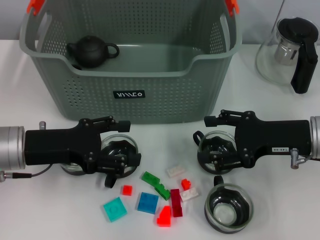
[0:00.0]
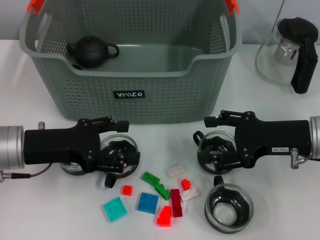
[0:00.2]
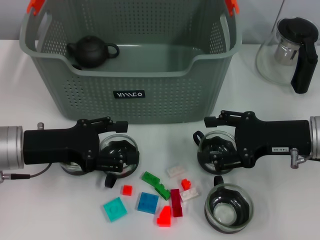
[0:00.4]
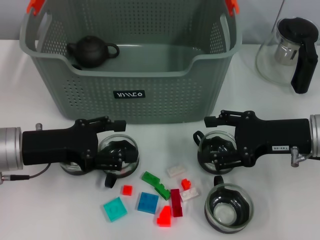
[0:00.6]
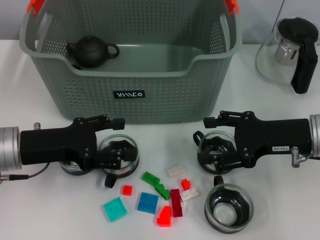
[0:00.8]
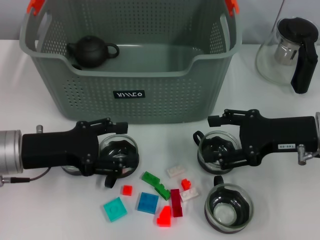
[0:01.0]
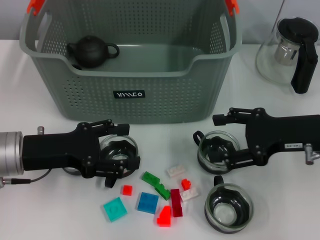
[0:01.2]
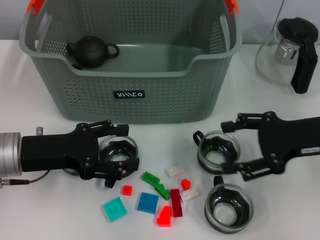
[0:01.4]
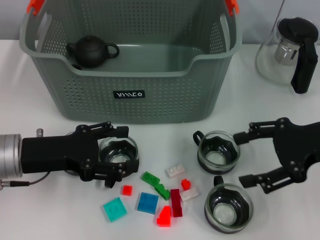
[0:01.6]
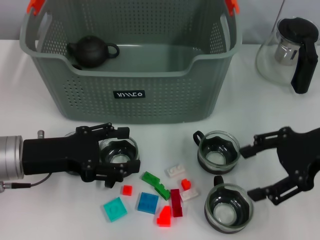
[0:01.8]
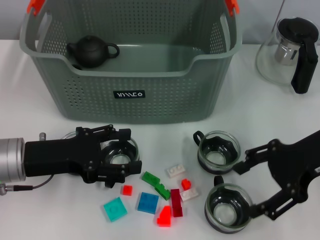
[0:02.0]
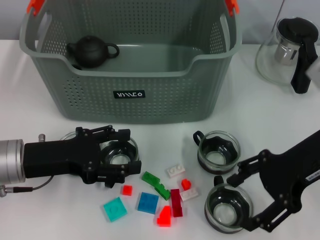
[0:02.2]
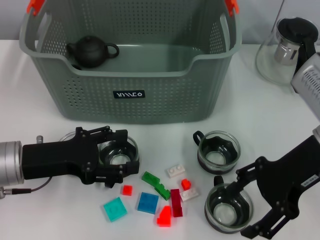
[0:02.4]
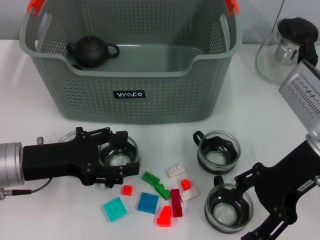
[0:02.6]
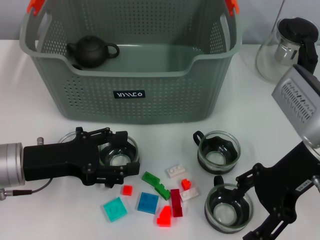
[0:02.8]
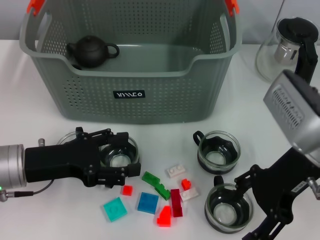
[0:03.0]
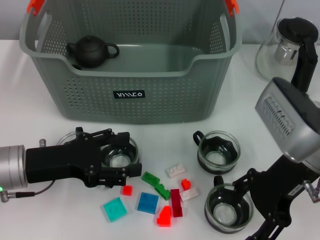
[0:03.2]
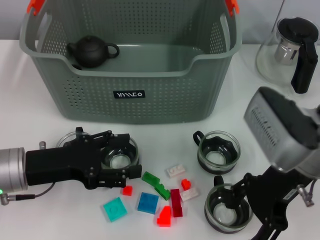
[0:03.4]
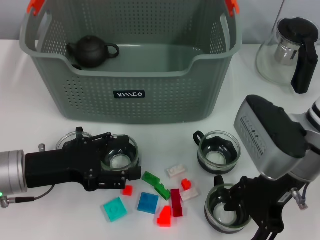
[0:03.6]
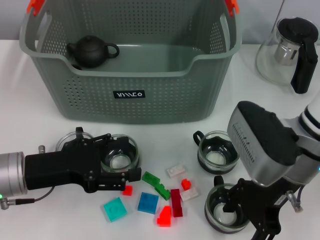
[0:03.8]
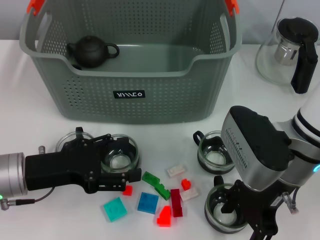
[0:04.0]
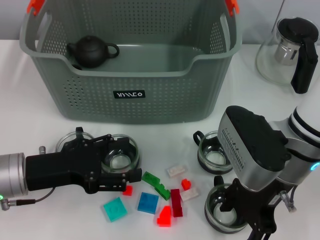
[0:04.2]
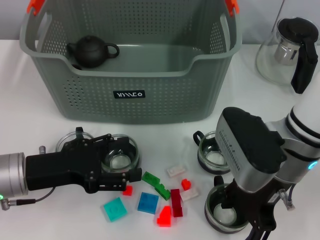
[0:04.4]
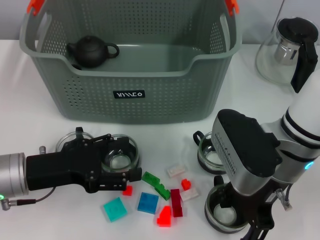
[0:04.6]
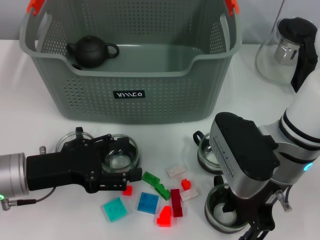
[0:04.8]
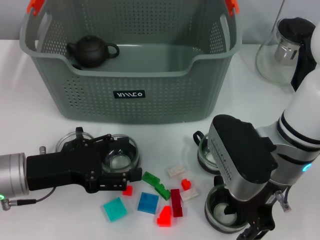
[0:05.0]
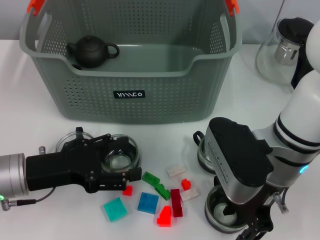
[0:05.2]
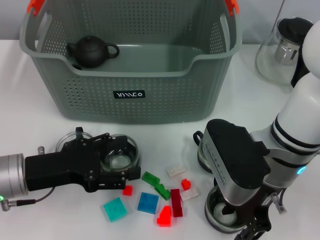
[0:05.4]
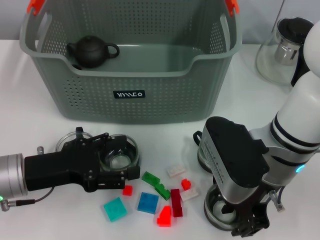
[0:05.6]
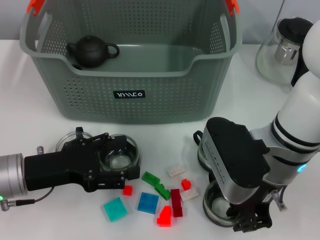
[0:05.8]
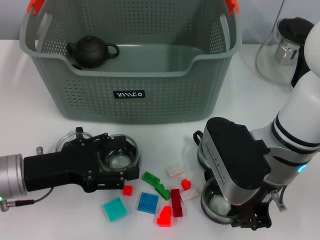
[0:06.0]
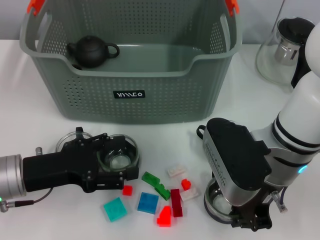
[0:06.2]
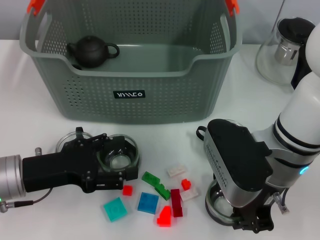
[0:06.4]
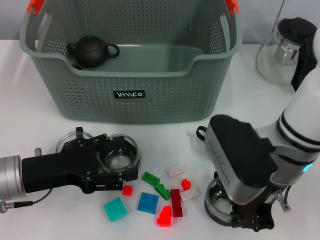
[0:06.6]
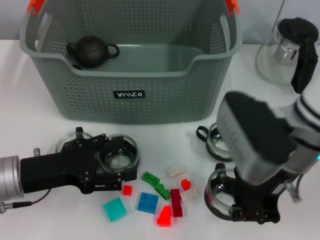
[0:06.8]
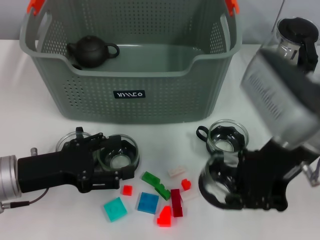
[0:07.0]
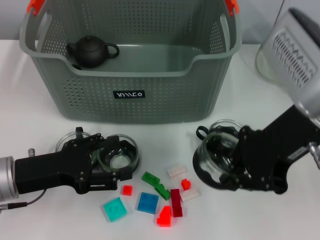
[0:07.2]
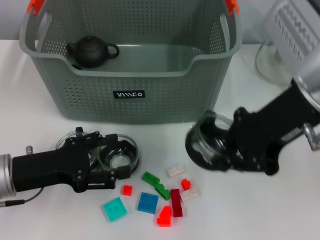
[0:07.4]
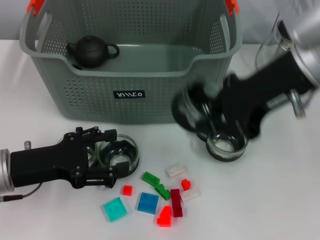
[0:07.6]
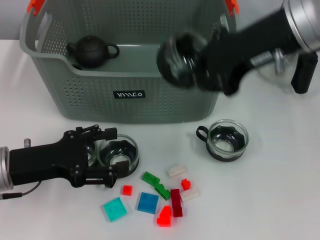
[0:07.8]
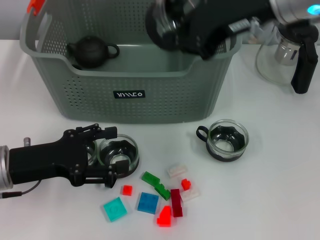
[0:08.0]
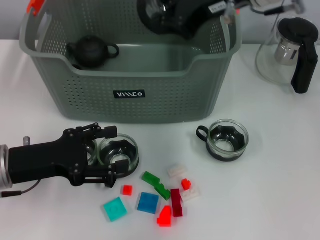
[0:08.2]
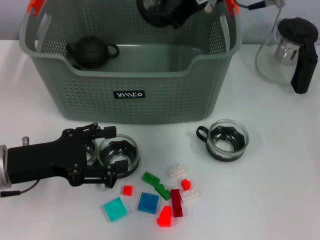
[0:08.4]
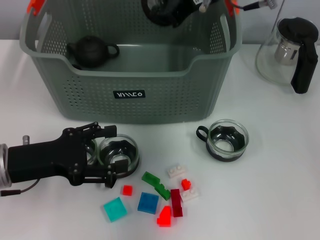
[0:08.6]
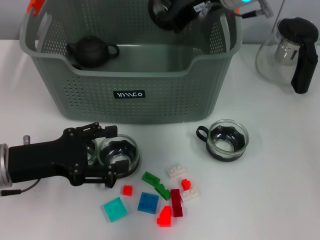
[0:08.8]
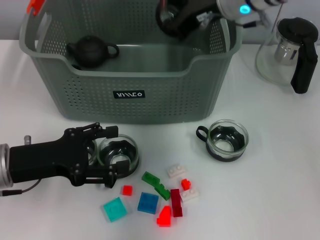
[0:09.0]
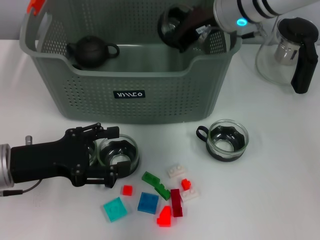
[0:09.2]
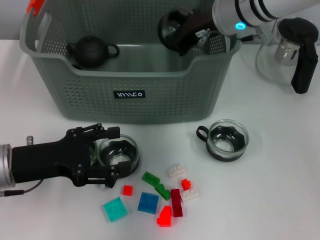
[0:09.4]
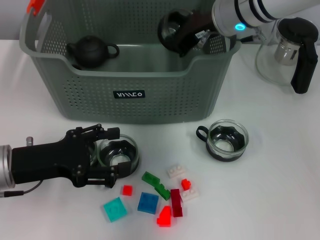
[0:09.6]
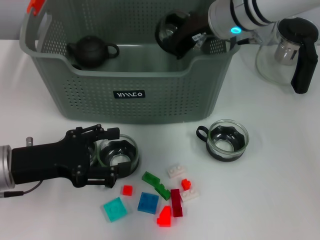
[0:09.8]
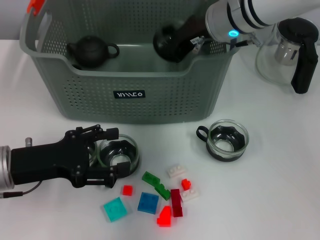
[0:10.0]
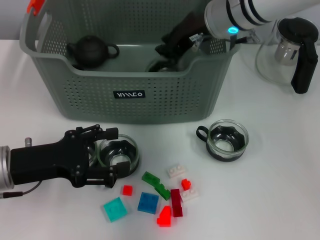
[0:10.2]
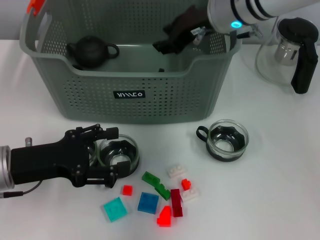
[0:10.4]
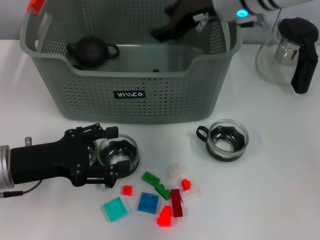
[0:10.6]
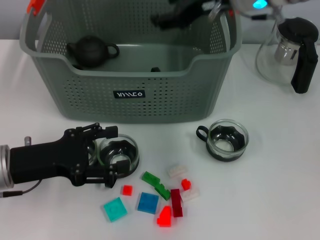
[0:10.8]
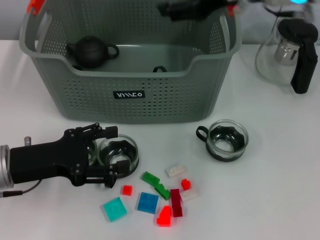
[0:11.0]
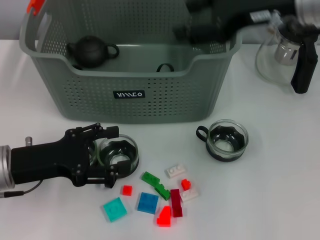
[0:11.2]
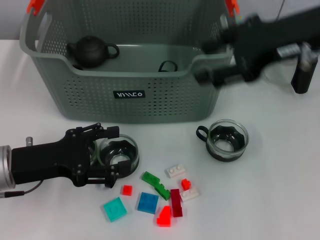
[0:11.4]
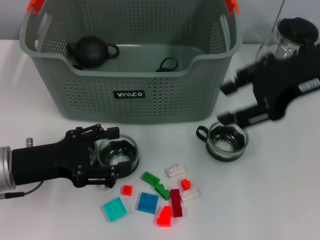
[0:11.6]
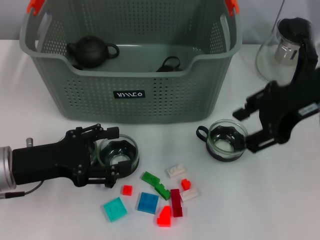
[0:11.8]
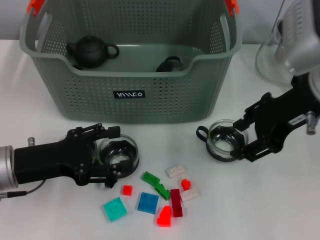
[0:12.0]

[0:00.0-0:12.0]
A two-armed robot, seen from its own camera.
Task of the whole recording: pick up the teacup on the table and place it into the storage bin, pick up the block on the table and place it into the storage bin.
Step, 0.0 to 6.2 s: Grasp the cup with right gripper.
Step, 6.4 to 10.2 s: Place the cup in the storage box with right gripper.
0.0 to 1.6 s: The right gripper travels upward by approximately 5 cm.
1.6 to 3.0 s: The right gripper is displaced to the left by about 10 cm.
3.0 to 4.4 s: The right gripper heads to the left, covering about 5 cm.
4.4 to 6.0 s: The right gripper closes its fingers.
6.0 to 7.6 s: The right gripper moves upward, roughly 15 cm.
7.6 to 9.0 s: The right gripper is displaced forward by approximately 15 cm.
9.0 to 10.4 s: The grippers stay close to where they were, moving slightly.
10.4 to 12.0 s: The right gripper shifts approximately 15 cm backward and to the right, and opens up.

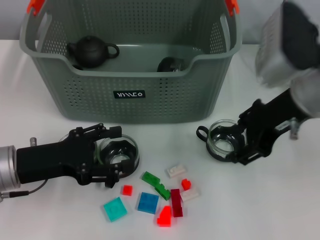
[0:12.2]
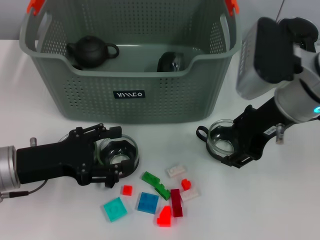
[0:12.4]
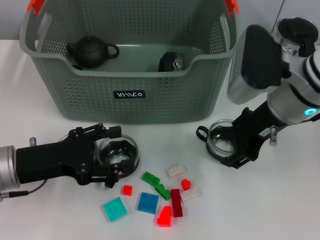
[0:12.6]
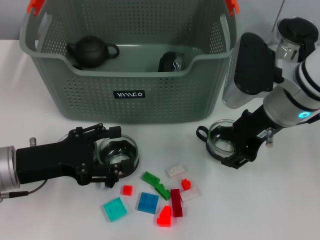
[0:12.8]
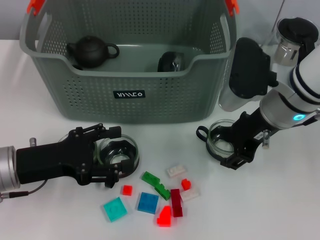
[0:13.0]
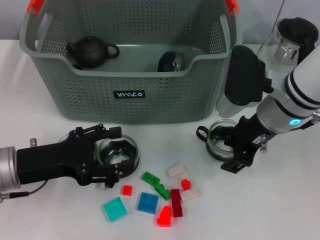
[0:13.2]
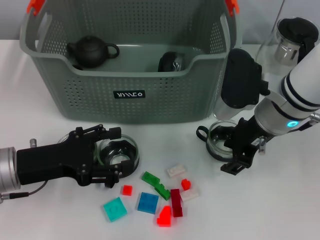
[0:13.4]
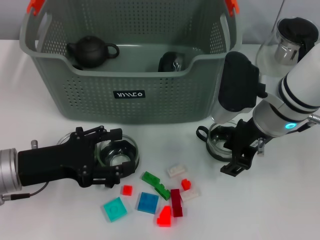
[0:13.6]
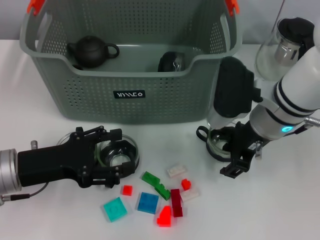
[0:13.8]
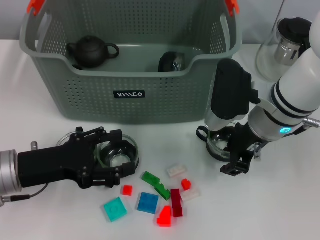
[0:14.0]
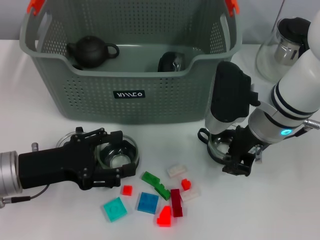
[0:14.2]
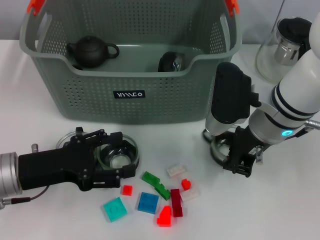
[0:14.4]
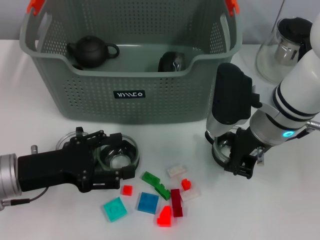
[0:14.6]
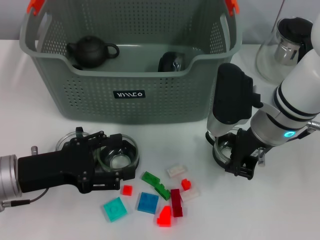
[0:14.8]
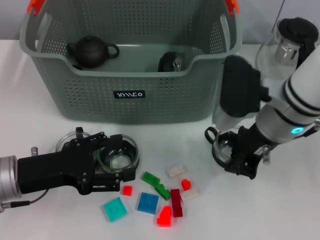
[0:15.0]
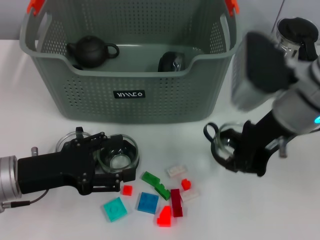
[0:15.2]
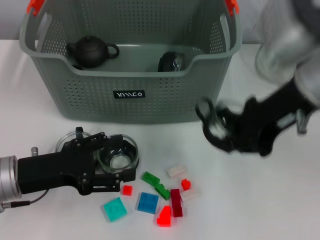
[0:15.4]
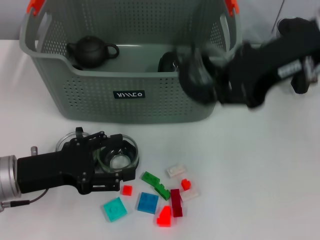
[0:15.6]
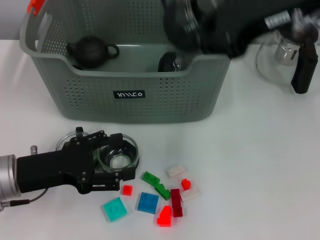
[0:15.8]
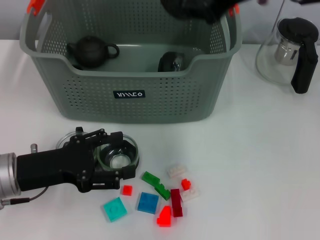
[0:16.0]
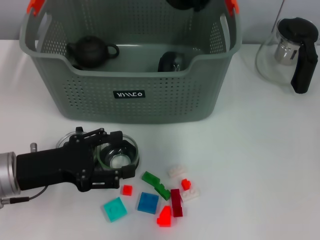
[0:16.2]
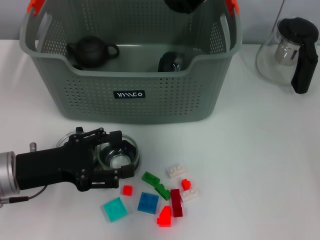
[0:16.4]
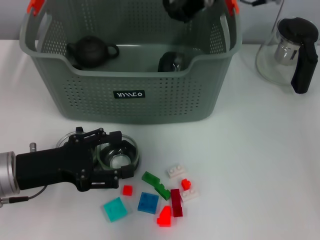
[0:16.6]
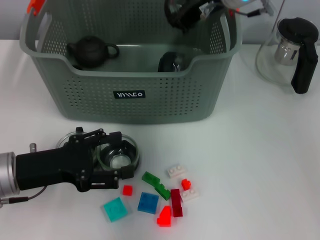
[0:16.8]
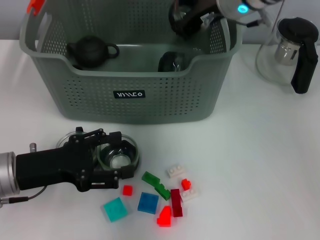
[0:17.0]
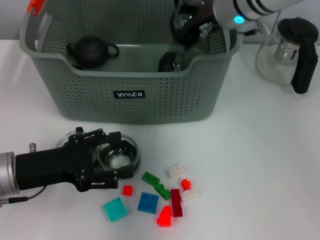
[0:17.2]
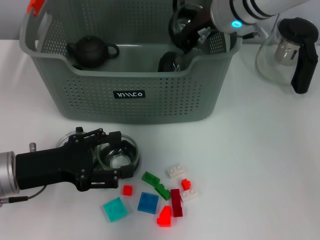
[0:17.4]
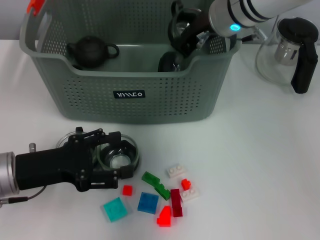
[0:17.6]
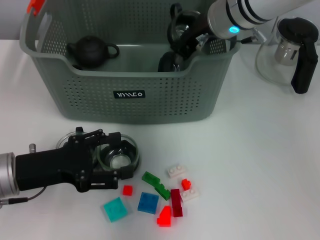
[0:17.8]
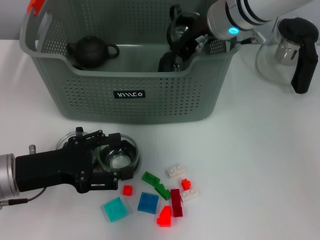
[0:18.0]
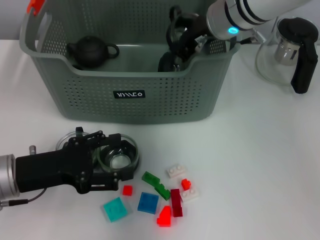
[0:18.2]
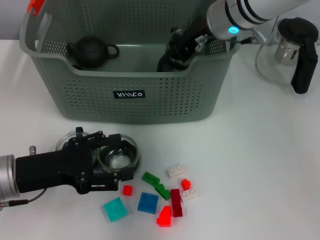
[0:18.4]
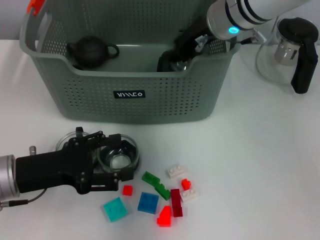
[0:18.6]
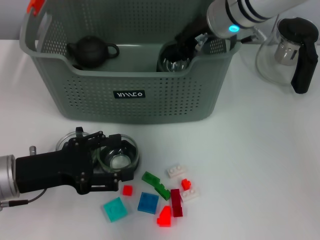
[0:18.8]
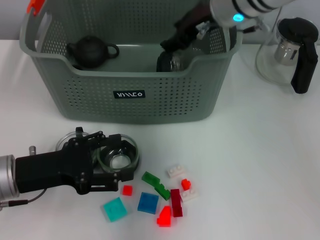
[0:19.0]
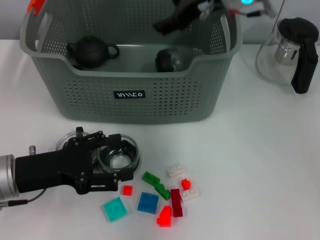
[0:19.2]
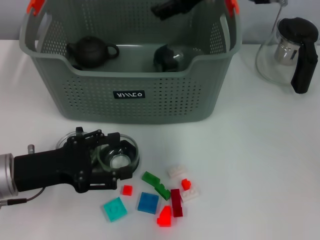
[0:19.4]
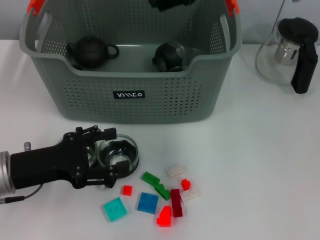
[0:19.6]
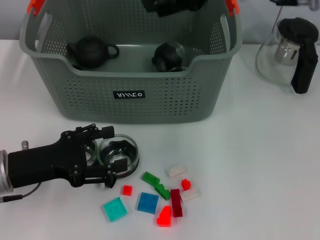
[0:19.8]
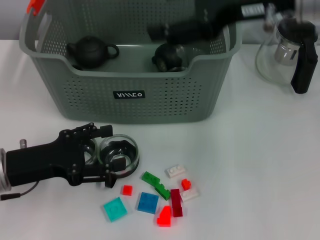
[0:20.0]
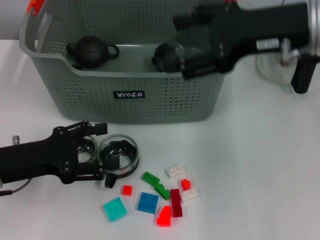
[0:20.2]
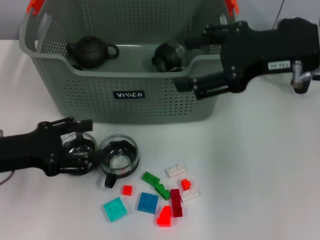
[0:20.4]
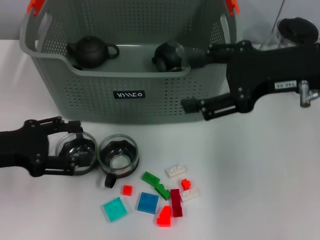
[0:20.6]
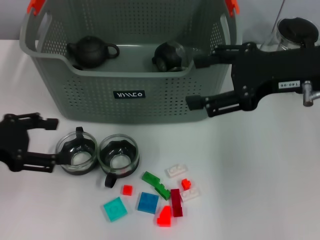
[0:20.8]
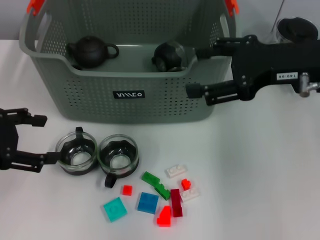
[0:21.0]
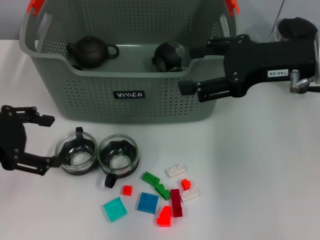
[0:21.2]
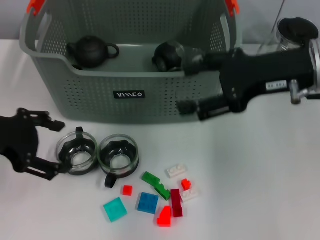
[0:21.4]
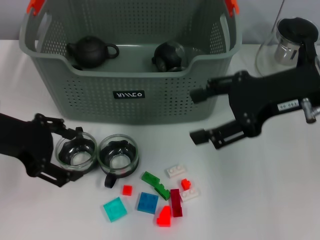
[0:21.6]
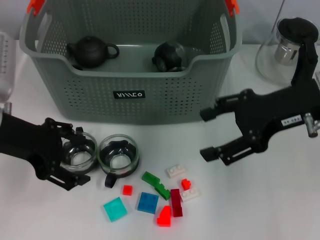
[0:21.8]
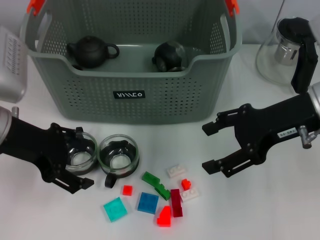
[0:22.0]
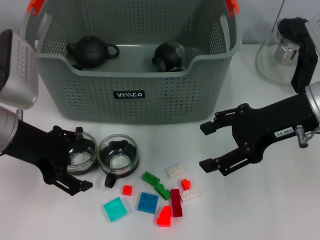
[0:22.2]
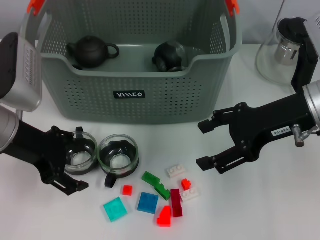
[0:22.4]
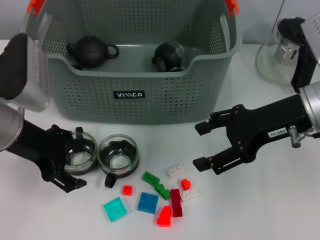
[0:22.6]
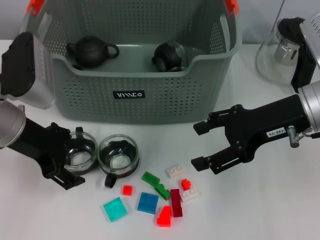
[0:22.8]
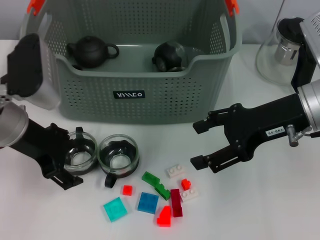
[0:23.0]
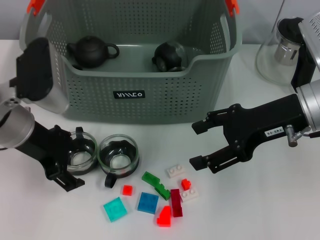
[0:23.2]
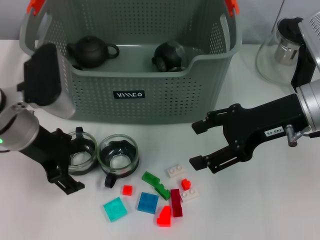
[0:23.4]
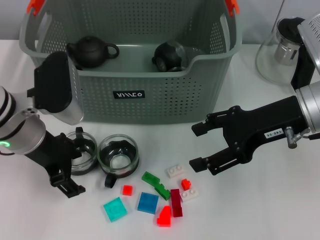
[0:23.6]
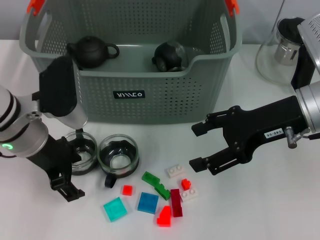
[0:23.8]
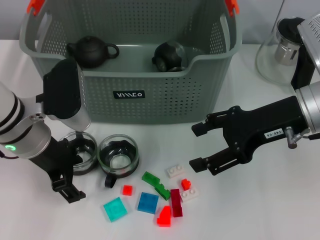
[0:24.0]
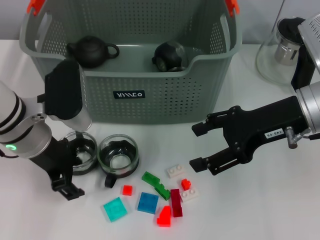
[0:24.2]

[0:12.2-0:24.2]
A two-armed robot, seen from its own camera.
Task of the whole recording: pick up the teacup on the table and place it into the storage bin, pick up the block on the table and place it into the storage bin.
Step, 12.2 to 14.4 s: Grasp the cup with right gripper.
Step, 14.6 to 19.0 s: Place the cup in the storage box with right gripper.
12.2 to 13.8 s: The right gripper shifts roughly 5 cm downward.
13.8 to 15.2 s: The right gripper moves upward, some 5 cm, and closes up.
15.2 to 16.6 s: The right gripper shifts some 15 cm forward, upward and to the left.
16.6 to 18.2 s: The right gripper heads downward, covering some 5 cm.
18.2 to 19.8 s: The right gripper travels upward, backward and to the right by some 15 cm, and opens.
19.8 to 21.2 s: The right gripper moves downward and to the right, roughly 10 cm, while the left gripper shifts roughly 10 cm upward.
21.2 to 22.6 s: The left gripper is displaced to the right by roughly 5 cm.
22.6 to 24.2 s: The grippers move only a little.
